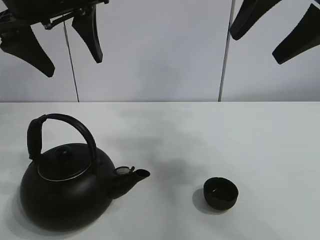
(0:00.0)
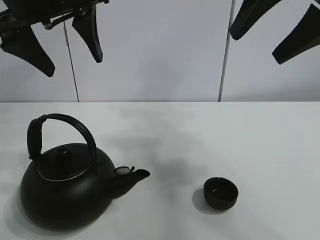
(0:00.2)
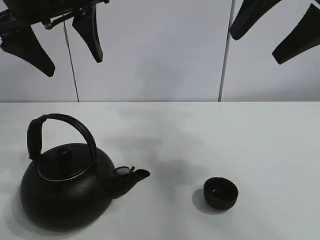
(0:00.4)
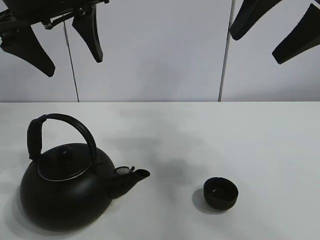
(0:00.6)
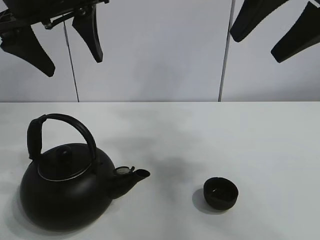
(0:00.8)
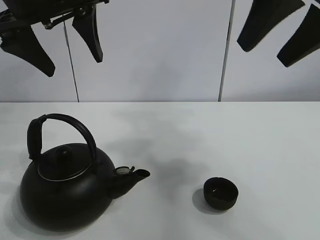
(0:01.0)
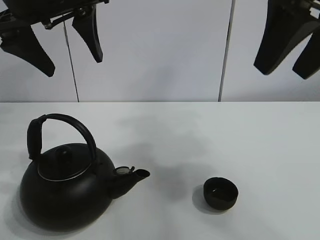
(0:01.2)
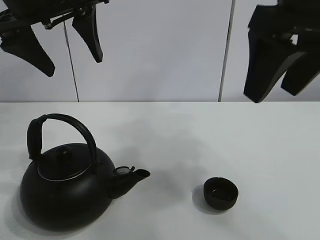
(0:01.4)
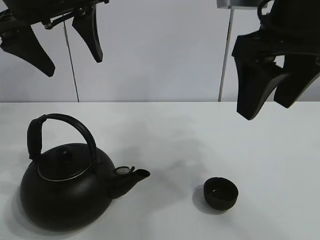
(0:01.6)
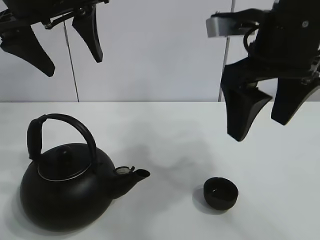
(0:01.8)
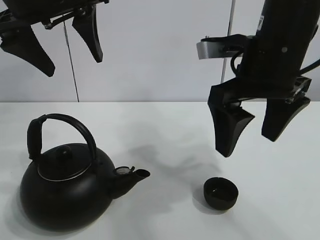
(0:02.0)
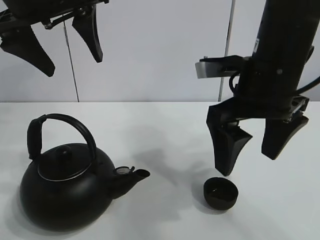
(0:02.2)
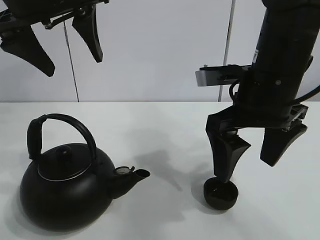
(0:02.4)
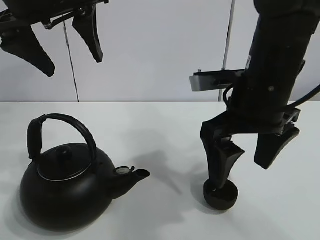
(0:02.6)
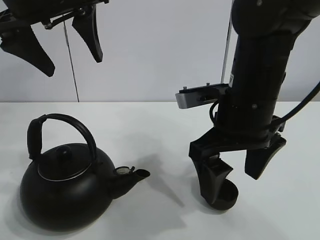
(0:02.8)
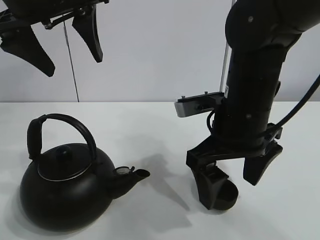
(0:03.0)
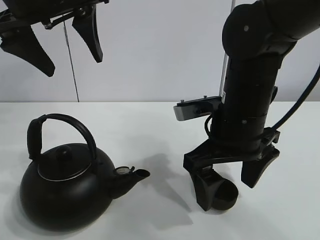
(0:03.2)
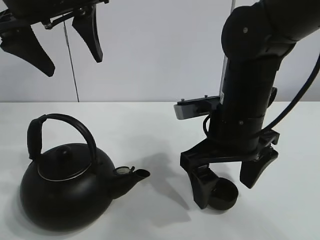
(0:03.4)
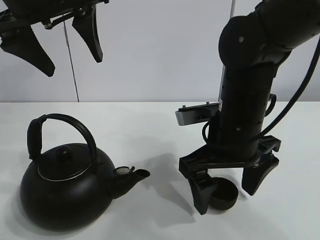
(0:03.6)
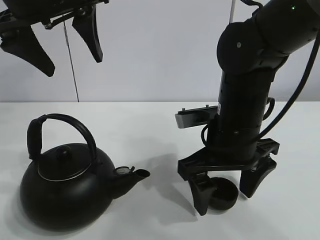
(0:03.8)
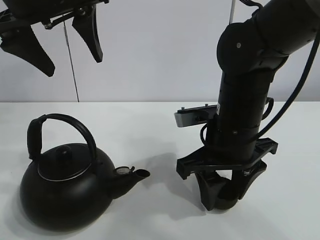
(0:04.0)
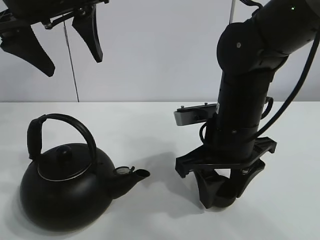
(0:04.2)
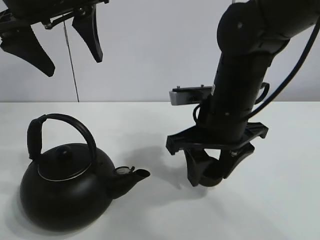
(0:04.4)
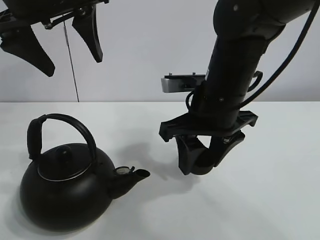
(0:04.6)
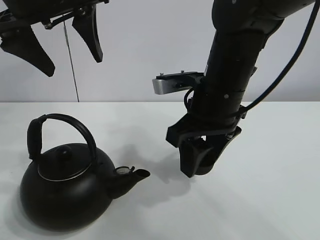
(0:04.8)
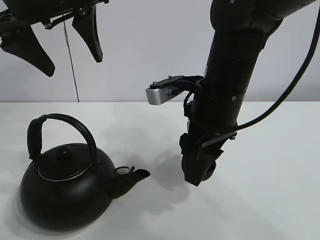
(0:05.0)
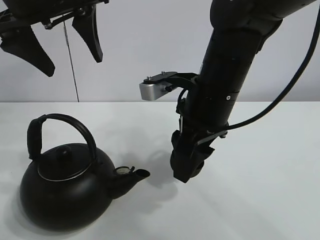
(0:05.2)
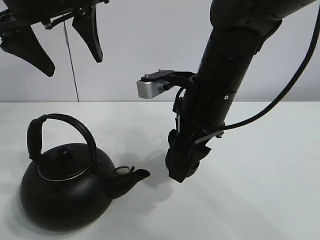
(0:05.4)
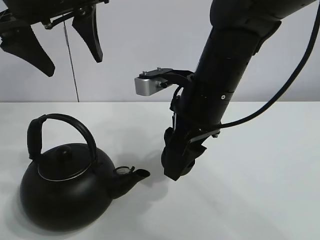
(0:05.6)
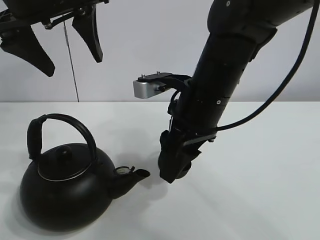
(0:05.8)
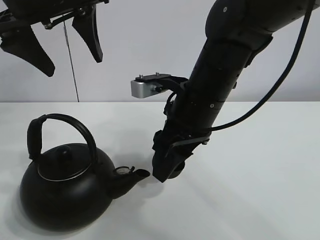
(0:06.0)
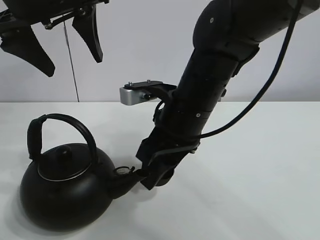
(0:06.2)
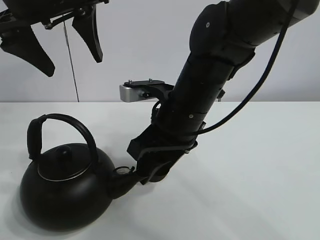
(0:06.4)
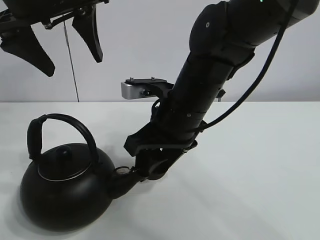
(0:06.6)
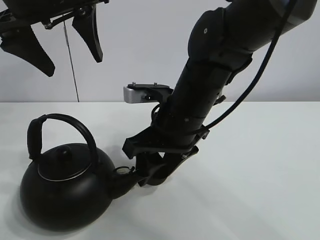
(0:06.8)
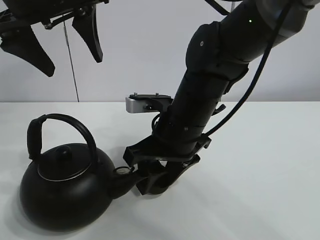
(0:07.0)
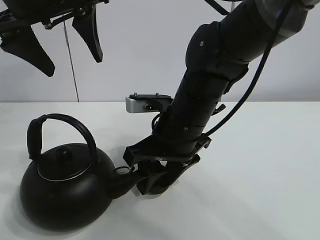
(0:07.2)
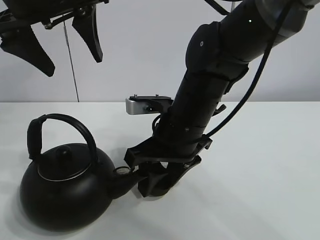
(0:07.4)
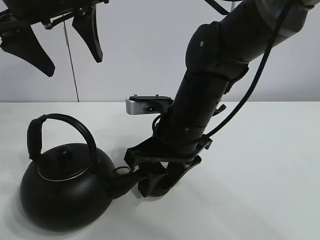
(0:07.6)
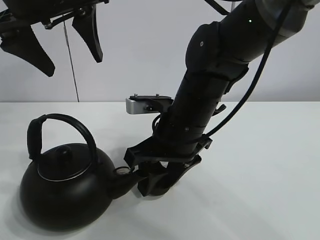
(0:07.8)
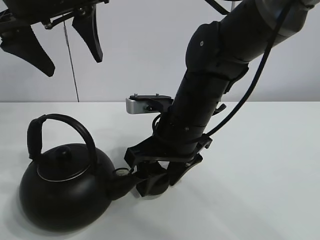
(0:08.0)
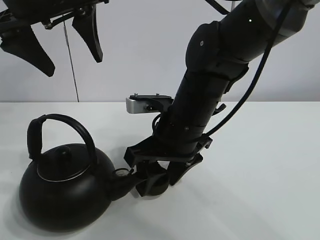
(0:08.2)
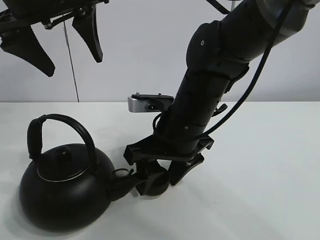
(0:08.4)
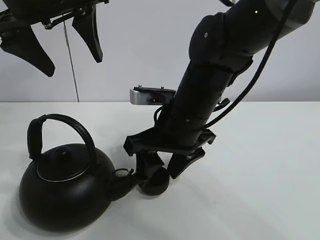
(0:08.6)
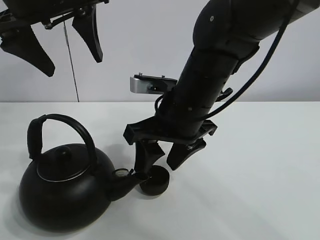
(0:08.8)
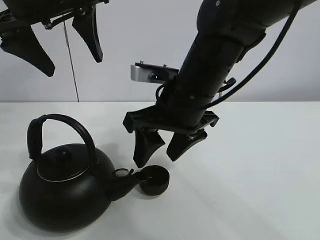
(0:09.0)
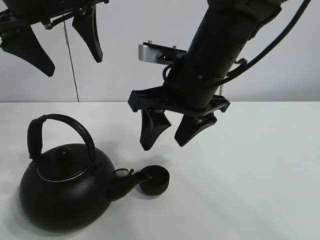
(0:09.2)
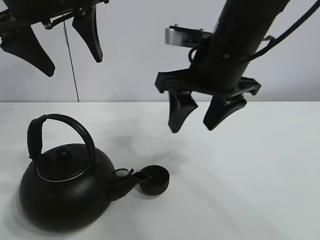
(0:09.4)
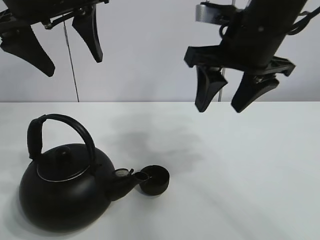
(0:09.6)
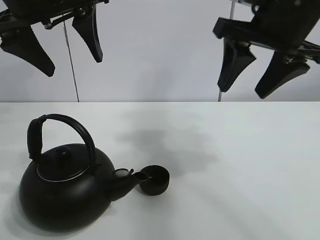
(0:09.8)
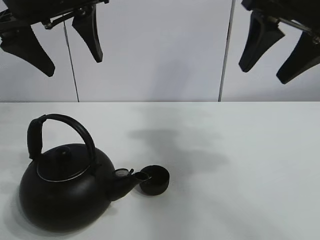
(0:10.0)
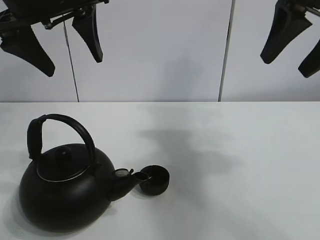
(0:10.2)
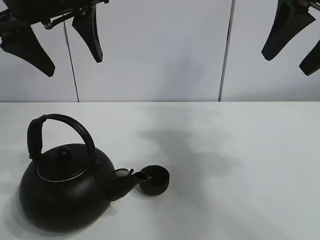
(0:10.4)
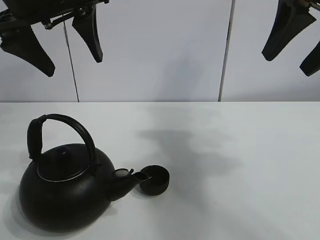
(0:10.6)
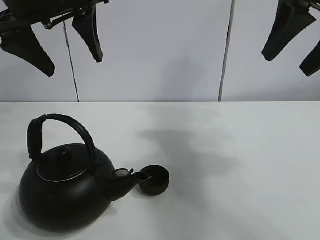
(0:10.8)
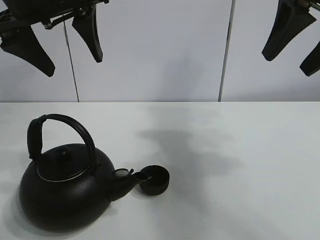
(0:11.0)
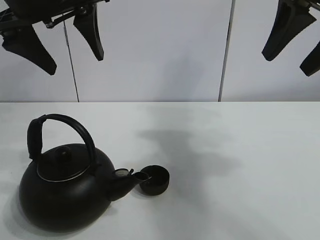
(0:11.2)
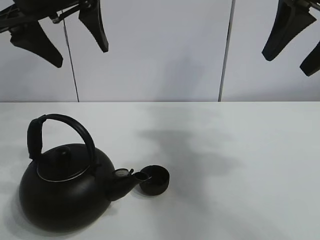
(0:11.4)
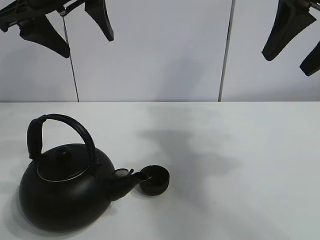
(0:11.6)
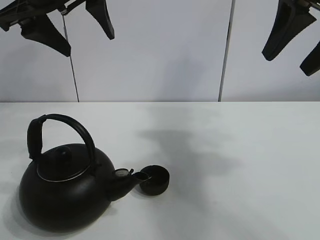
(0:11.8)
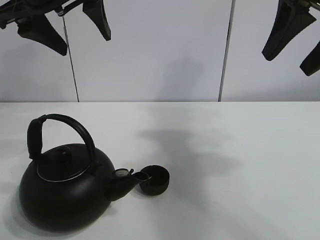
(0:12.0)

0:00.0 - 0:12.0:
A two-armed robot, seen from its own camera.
Task of the whole recording: pour tea into the teacup.
Step, 0:00.0 - 0:04.0: Pick up the teacup with the right gripper.
Step, 0:04.2 - 0:08.2: Place the teacup in the center of view with the right gripper.
0:01.6 - 0:03.0: The right gripper shifts approximately 15 cm downward, and opens.
0:03.0 - 0:04.4: The right gripper closes.
0:07.6 - 0:09.0: The grippers stay close to where they were, moving slightly.
0:09.0 - 0:10.4: The right gripper is displaced to the right and upward by some 25 cm.
0:10.4 - 0:12.0: The grippers stay close to where they were, moving slightly.

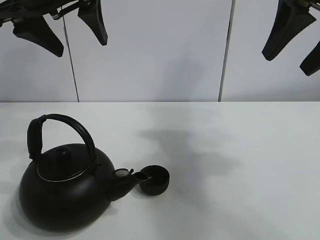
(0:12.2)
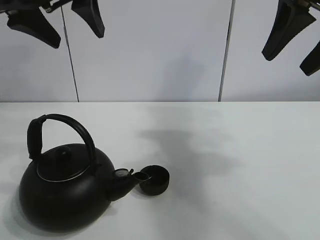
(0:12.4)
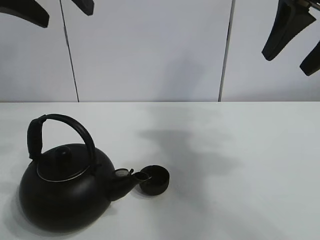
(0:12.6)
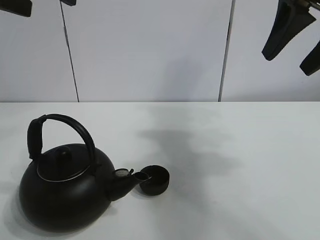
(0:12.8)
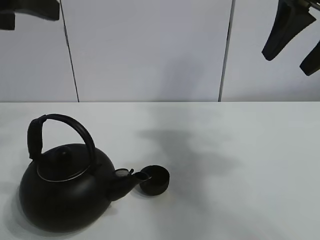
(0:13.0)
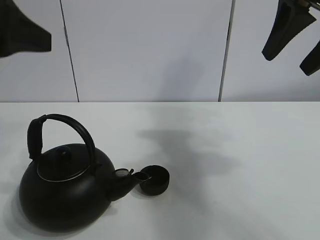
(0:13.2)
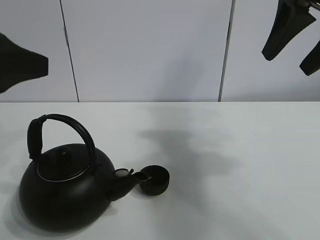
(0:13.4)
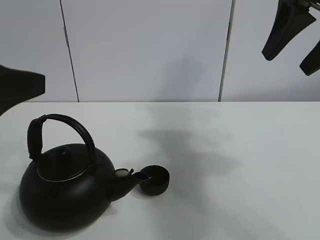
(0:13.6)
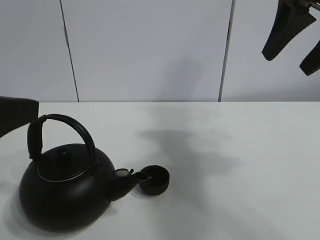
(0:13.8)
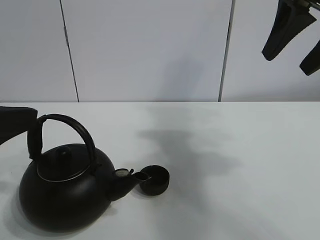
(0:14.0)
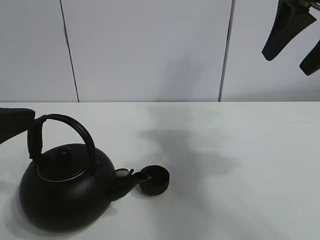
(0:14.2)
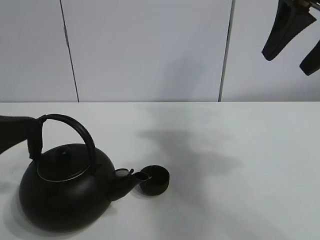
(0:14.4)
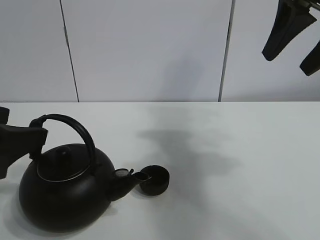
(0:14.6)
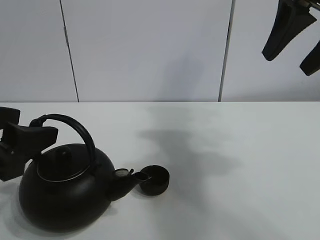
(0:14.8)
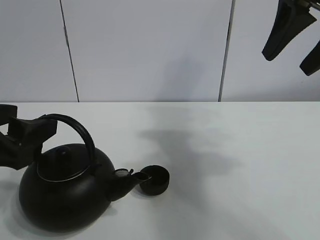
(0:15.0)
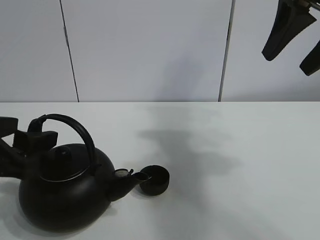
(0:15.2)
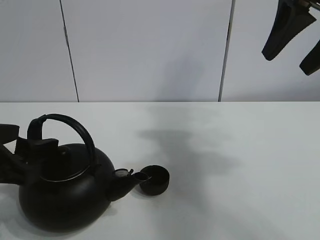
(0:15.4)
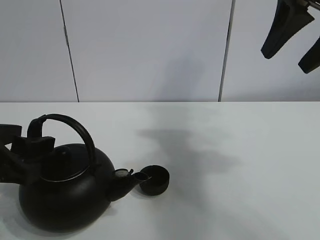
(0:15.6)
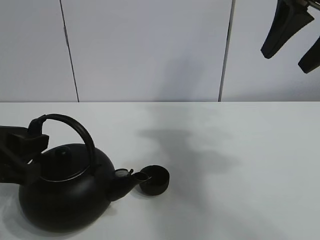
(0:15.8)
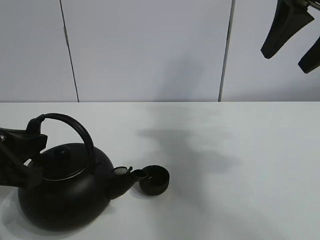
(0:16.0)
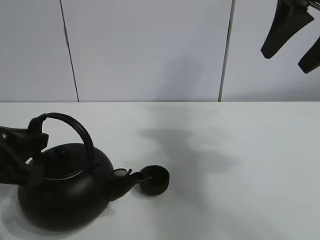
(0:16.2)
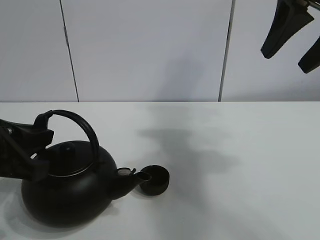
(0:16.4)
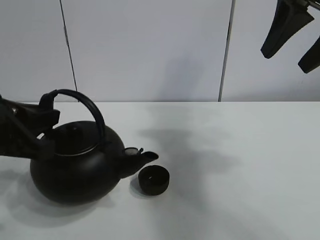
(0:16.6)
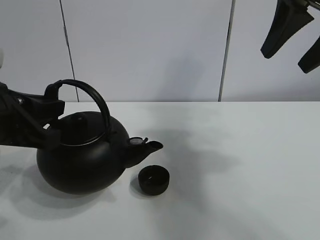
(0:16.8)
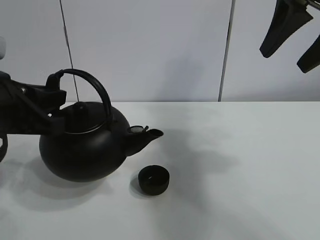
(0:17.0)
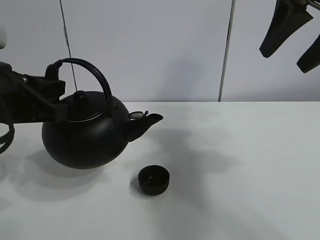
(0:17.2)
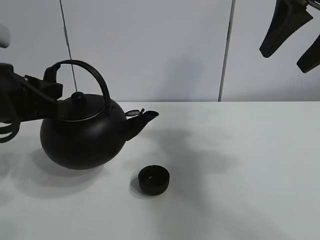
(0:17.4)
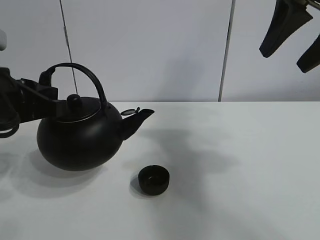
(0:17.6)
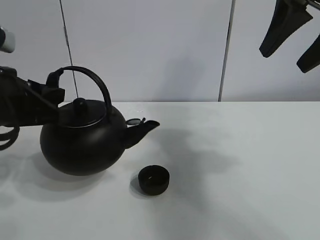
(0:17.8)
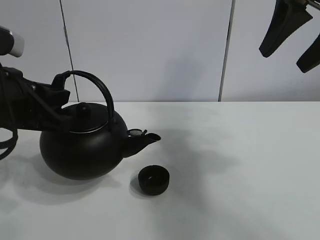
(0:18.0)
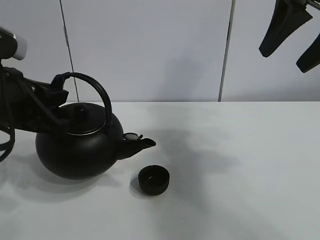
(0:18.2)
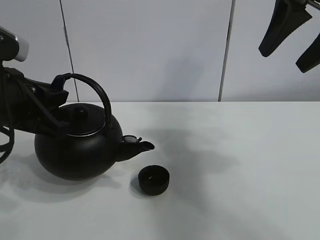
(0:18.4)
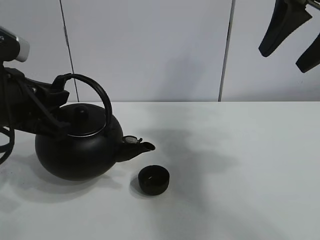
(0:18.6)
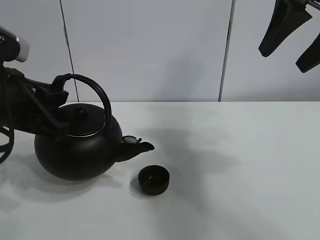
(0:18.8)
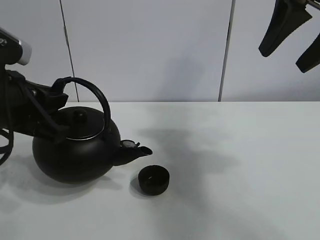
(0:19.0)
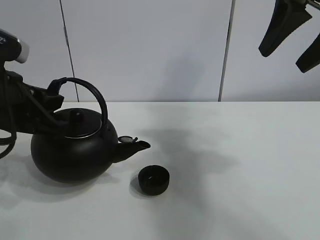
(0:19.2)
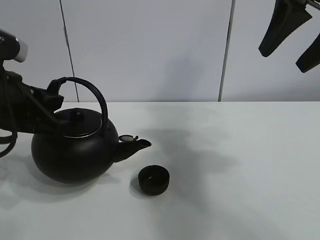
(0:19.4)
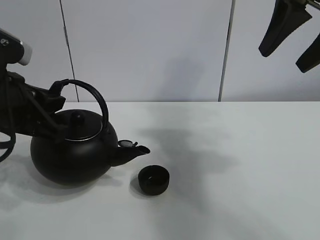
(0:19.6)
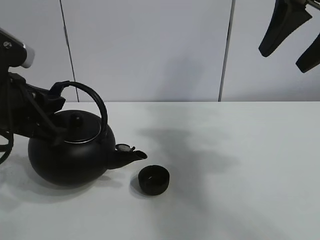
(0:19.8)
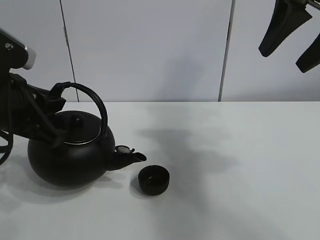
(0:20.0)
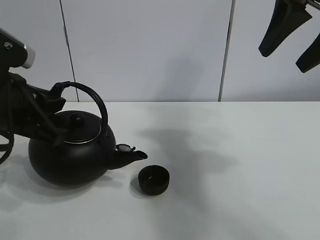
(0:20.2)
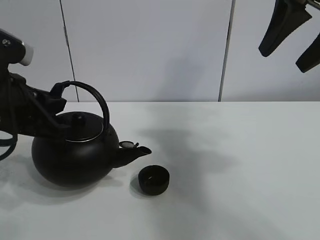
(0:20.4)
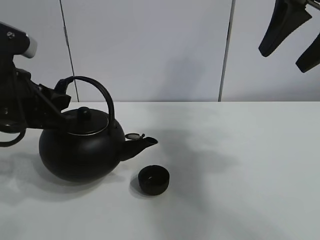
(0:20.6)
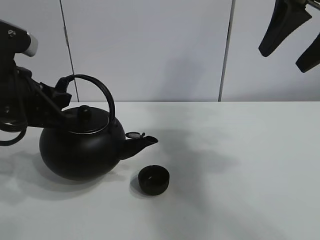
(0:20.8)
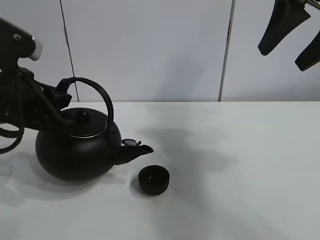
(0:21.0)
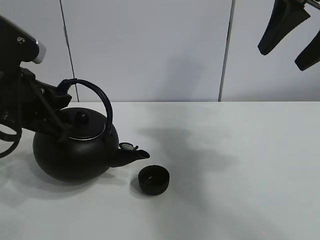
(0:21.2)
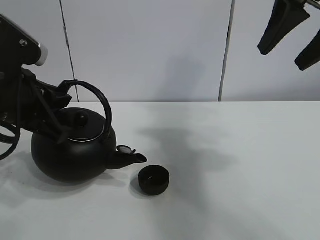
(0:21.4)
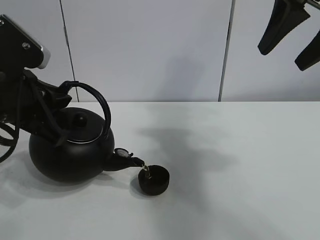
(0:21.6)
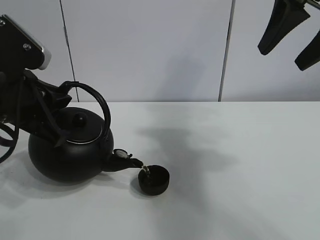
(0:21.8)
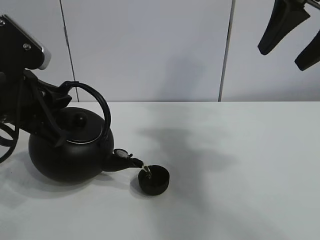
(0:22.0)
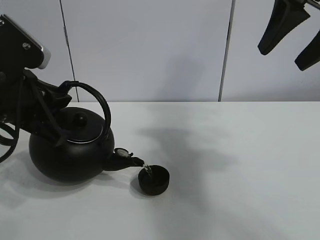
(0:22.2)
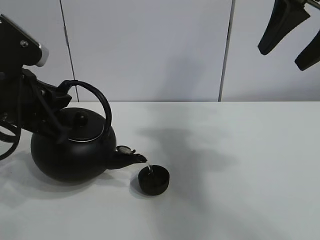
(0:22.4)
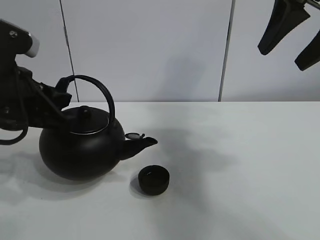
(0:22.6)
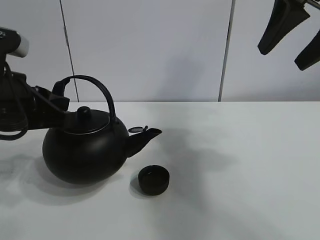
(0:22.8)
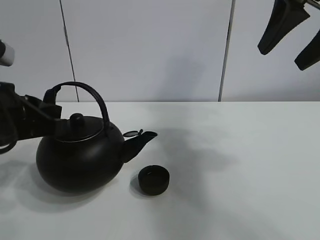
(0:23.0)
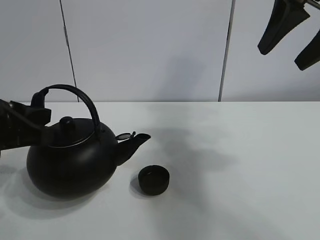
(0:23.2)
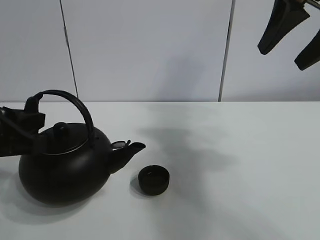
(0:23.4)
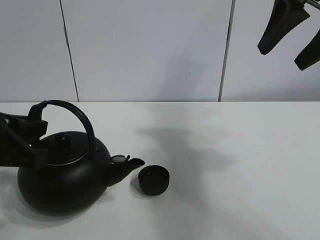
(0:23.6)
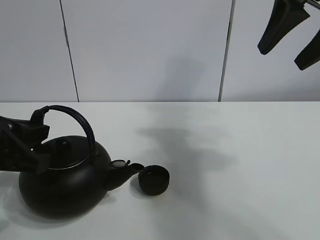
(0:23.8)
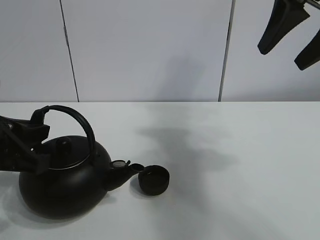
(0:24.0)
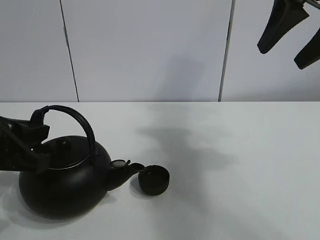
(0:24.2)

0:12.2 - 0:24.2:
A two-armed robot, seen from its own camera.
Task of the whole recording: pour tea into the teacup.
Step, 0:12.2 - 0:16.2: Pick up the teapot with the left gripper.
Step, 0:16.4 - 0:22.4: Pour tea into the teacup with the left gripper.
0:12.2 - 0:13.8: The left gripper heads backward, downward and to the left, covering about 20 cm.
0:13.8 - 0:15.2: The left gripper goes approximately 5 cm downward.
0:15.2 - 0:16.6: The left gripper closes its fingers.
0:16.6 - 0:21.2: The grippers move only a little.
0:21.2 - 0:22.6: The grippers move only a little.
0:22.6 - 0:24.2: The left gripper ends up roughly 5 cm from where it was.
